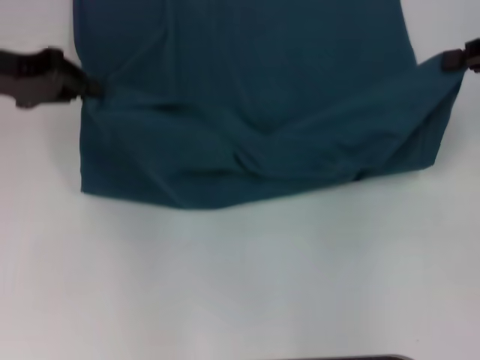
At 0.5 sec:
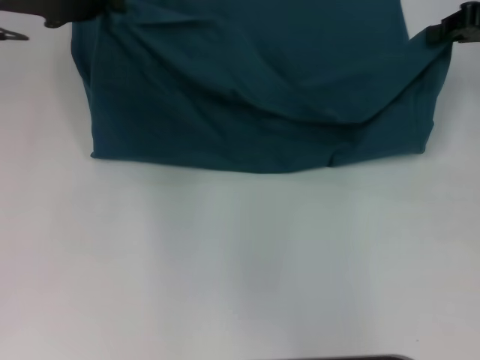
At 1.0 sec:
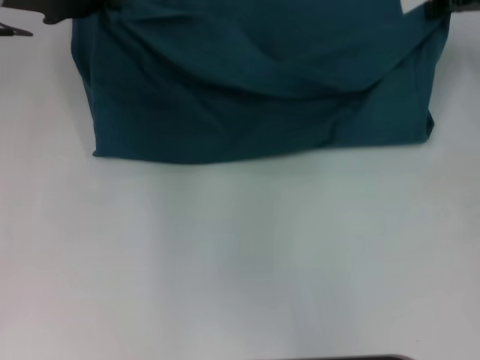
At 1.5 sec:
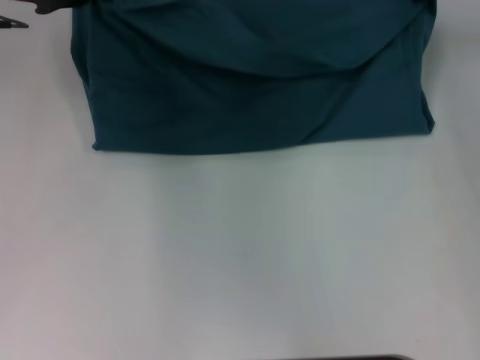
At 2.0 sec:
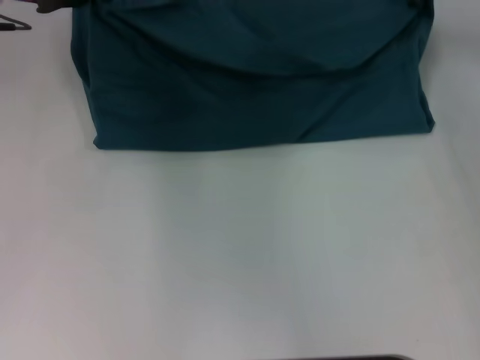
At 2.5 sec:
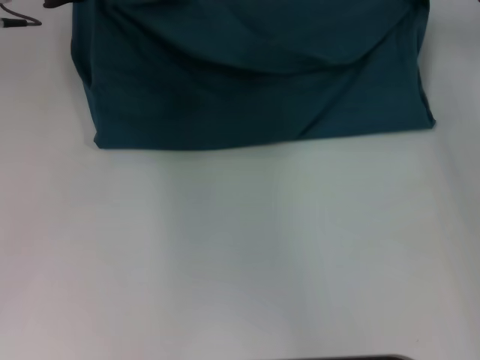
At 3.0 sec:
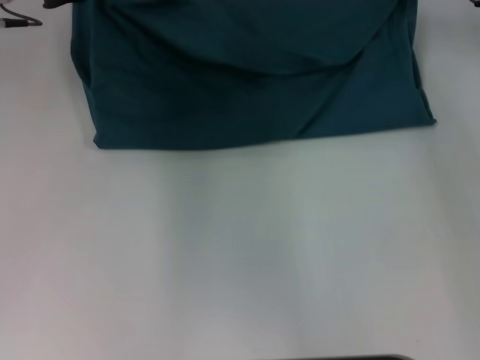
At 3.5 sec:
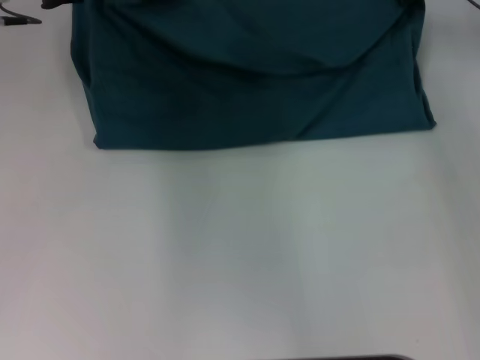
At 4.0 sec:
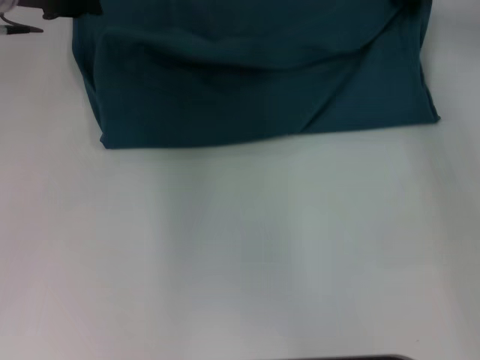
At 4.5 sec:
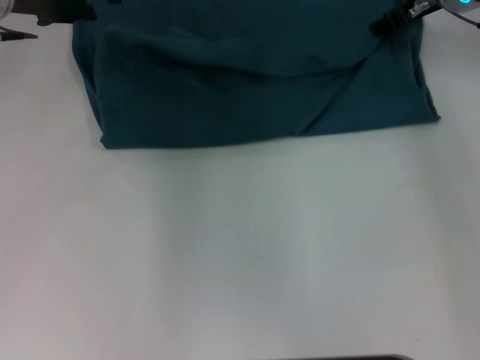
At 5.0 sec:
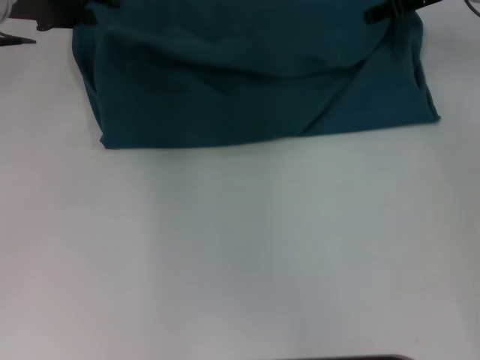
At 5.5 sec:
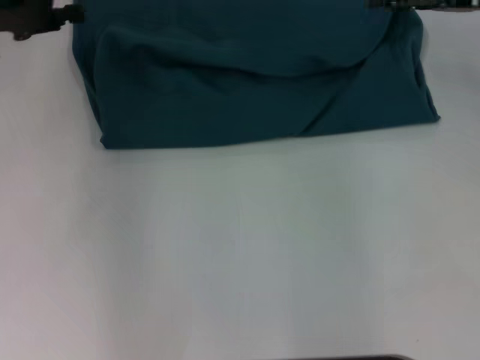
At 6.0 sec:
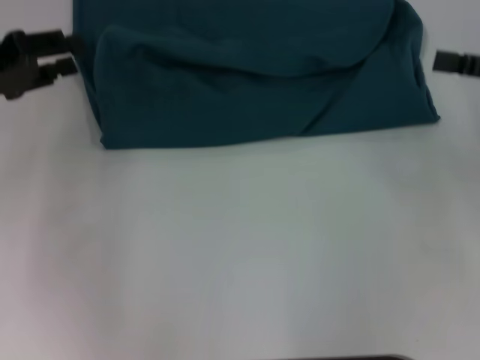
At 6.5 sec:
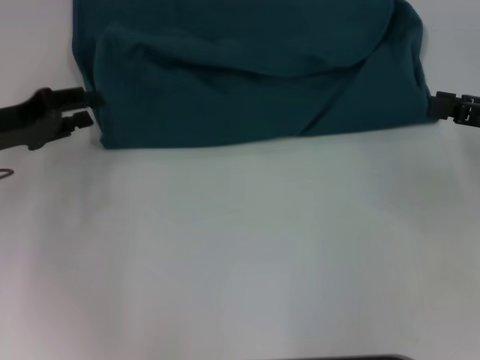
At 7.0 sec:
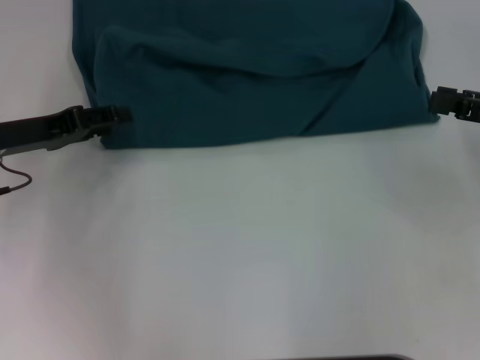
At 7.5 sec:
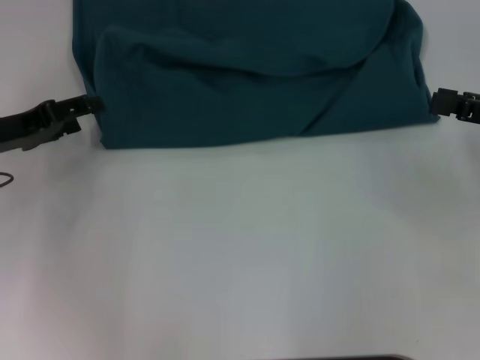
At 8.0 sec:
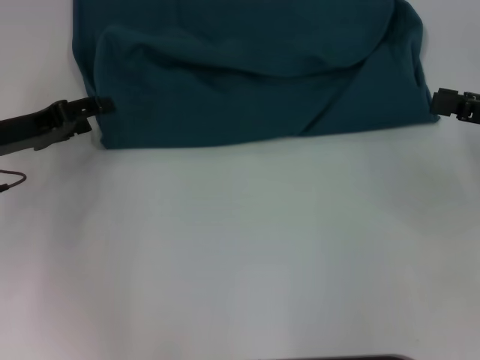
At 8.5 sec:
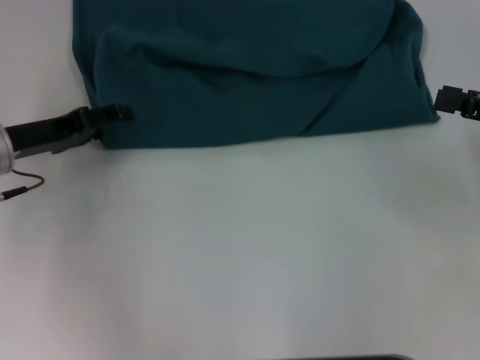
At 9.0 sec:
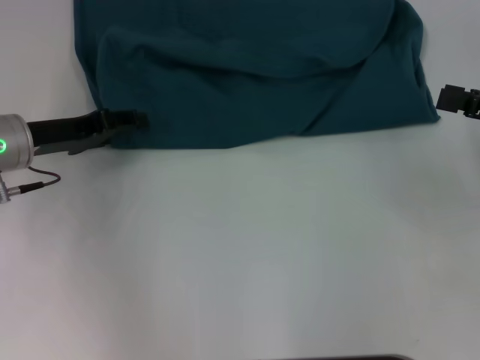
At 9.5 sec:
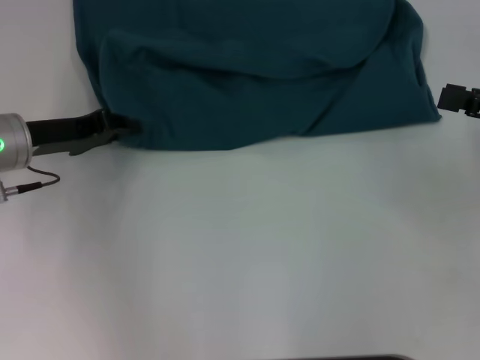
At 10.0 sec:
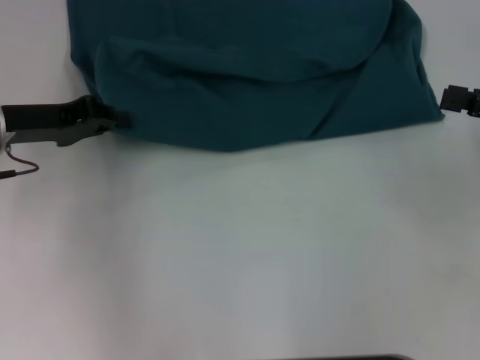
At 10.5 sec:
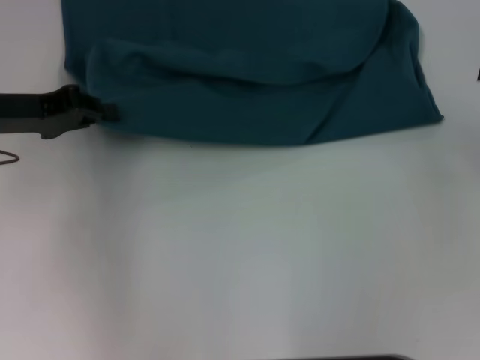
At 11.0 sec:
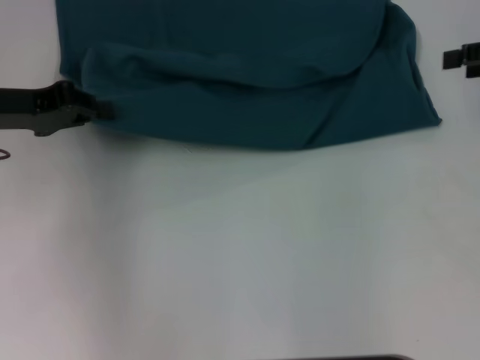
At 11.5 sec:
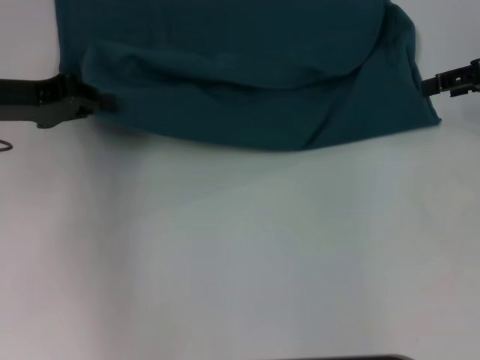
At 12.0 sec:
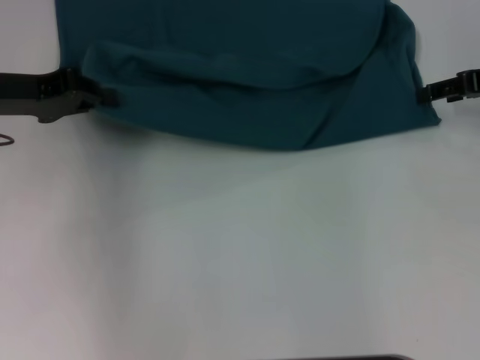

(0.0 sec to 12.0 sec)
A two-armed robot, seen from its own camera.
Step, 0.0 sec - 4.5 sec: Fold the clothes to the left.
Step, 0.0 sec - 4.5 sec: Fold the clothes to the right.
0.0 sec - 2.0 sec: The left gripper shifts roughly 5 cm forward. The right gripper goes some 15 cm forward and to the left.
2.0 sec - 4.0 sec: The right gripper opens its fingers.
4.0 sec - 6.0 sec: The right gripper moves backward and to the right, approximately 20 cm, and opens its fingers. Meanwhile the left gripper moves backward and to the left, some 15 cm.
6.0 sec - 8.0 sec: The left gripper shifts some 5 cm downward.
8.0 sec - 10.0 sec: The left gripper closes.
10.0 sec - 12.0 sec: The right gripper is displaced forward by about 10 cm.

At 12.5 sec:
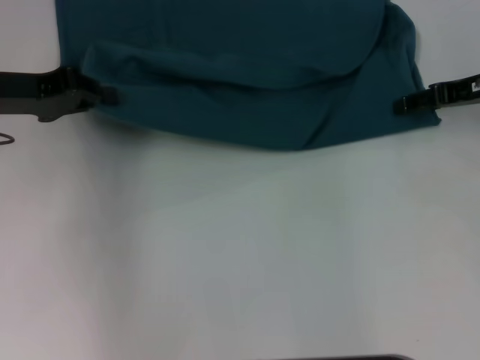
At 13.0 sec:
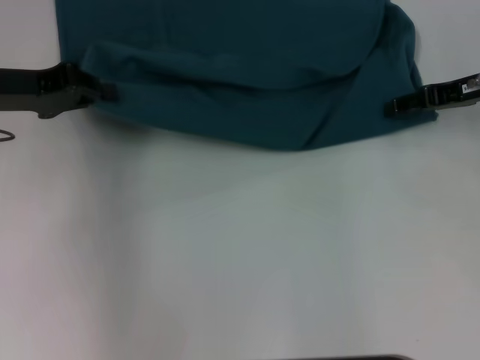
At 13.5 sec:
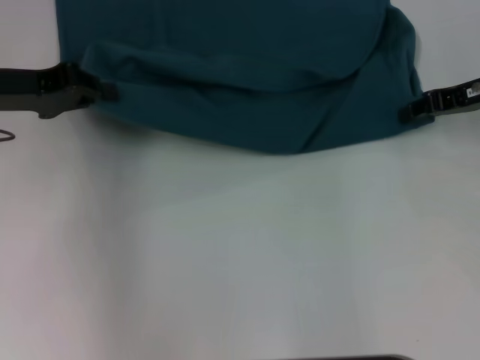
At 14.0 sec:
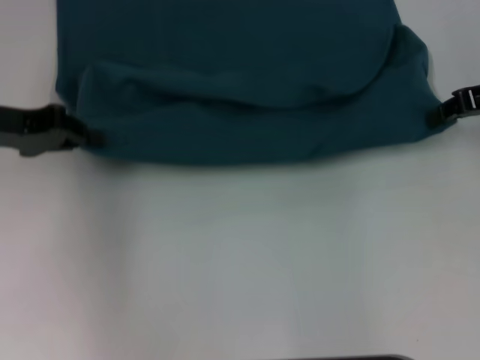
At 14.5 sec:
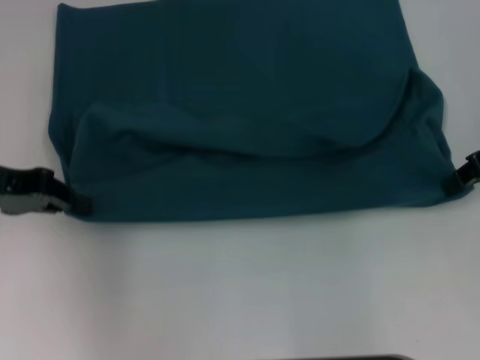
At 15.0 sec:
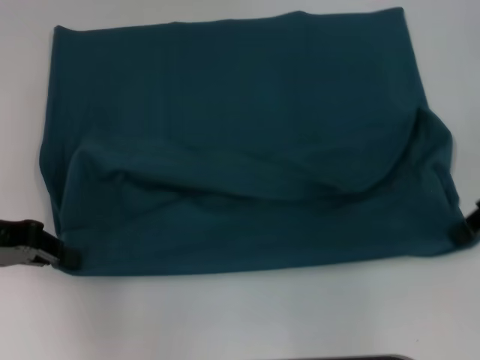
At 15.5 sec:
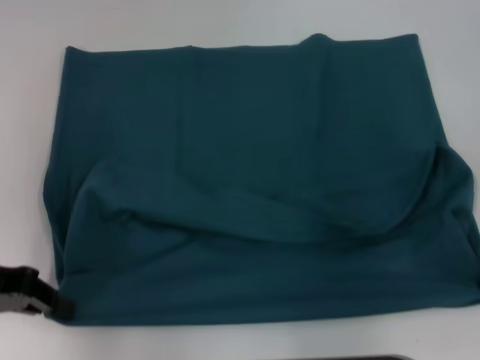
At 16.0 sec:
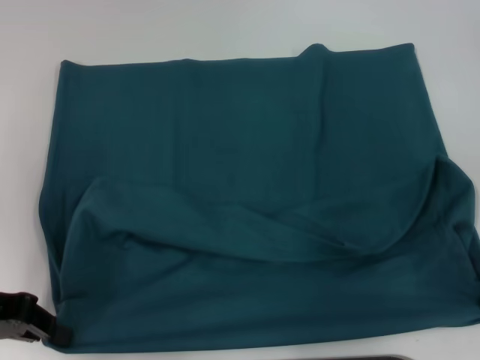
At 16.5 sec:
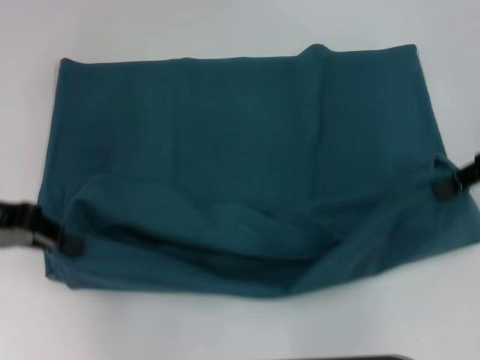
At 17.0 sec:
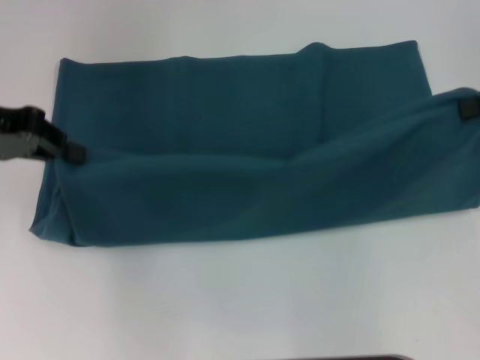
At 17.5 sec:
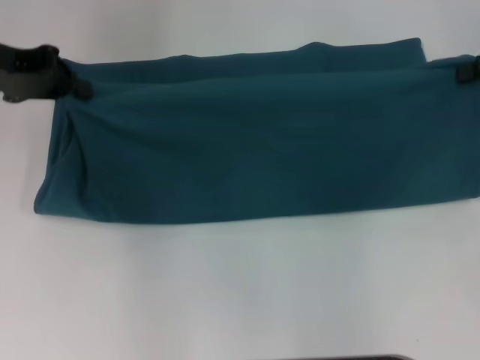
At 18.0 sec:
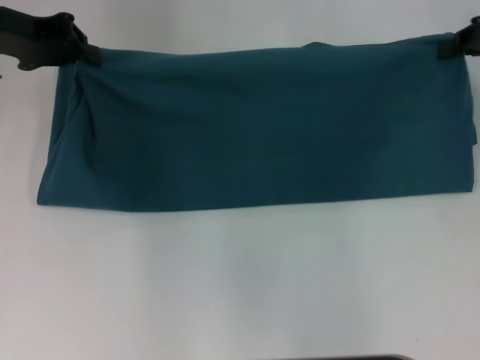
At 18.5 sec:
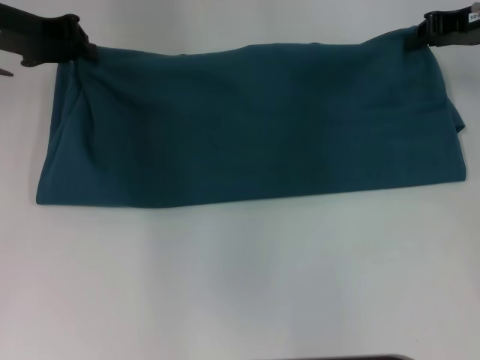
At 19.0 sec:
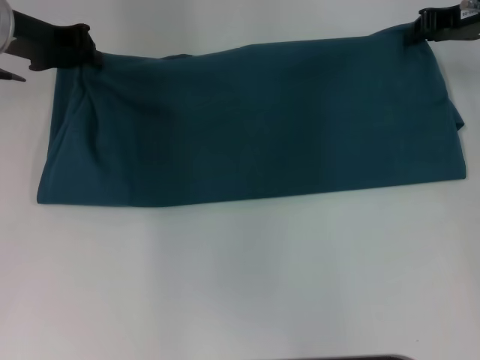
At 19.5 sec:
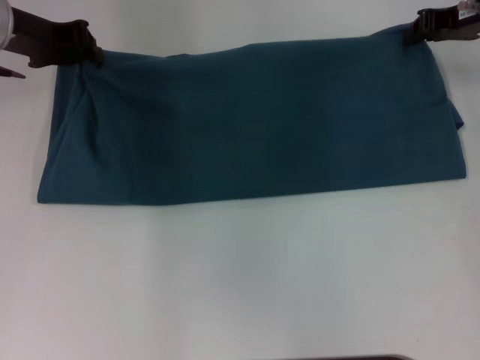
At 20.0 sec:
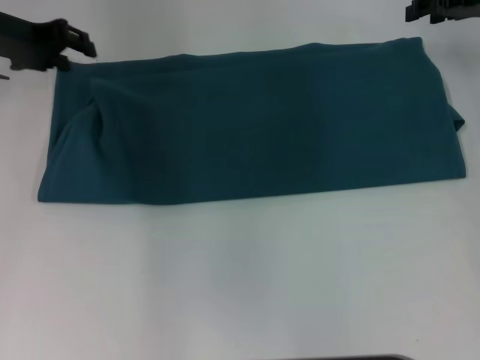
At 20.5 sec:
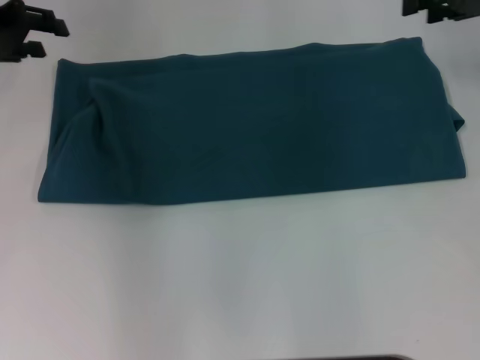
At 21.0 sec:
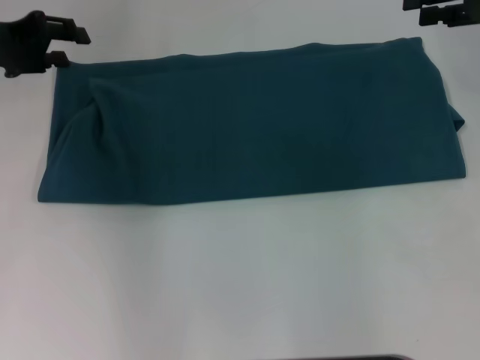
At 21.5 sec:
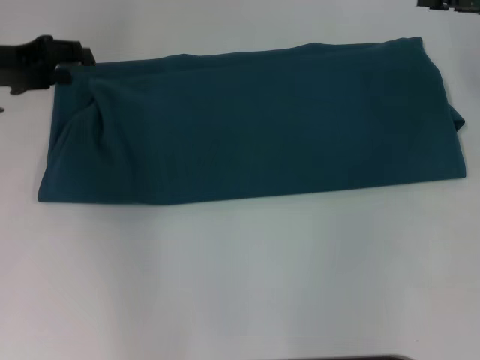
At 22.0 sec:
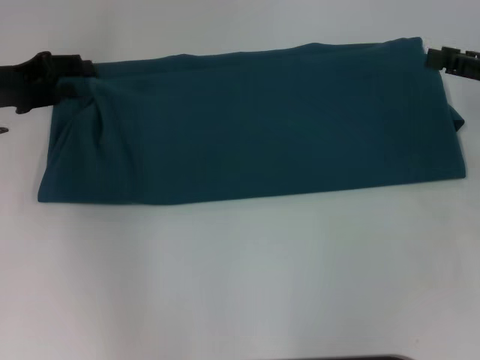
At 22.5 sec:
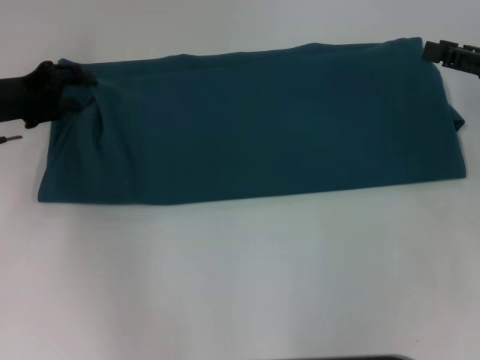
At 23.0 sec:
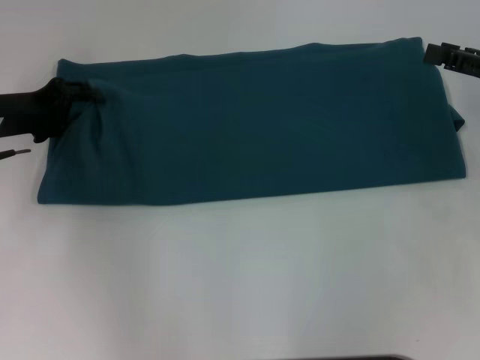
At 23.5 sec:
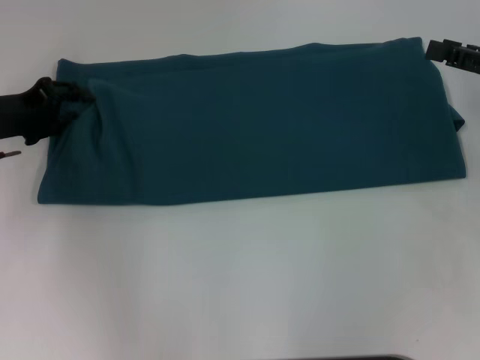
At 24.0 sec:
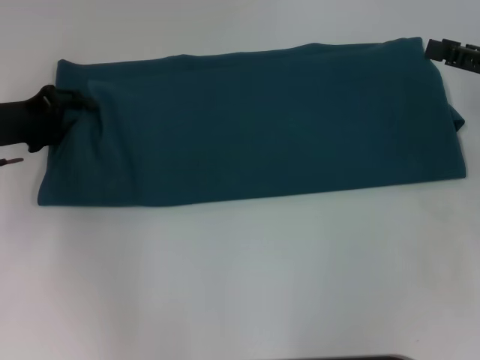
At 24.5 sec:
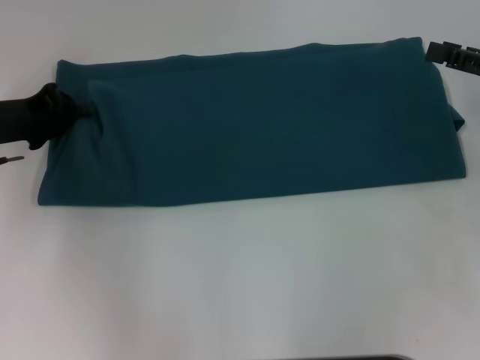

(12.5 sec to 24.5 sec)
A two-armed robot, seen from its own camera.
Step, 12.5 sec - 15.5 sec: Pull the clothes with your left hand.
Step, 12.5 sec - 15.5 sec: Pull the clothes with your right hand.
Step, 16.0 sec - 19.5 sec: Fold the clothes to the right.
12.5 sec - 14.5 sec: The right gripper moves approximately 5 cm, and closes; the left gripper changes place by about 5 cm.
16.5 sec - 18.5 sec: The grippers both shift forward by approximately 10 cm.
18.5 sec - 20.5 sec: The right gripper opens up. Meanwhile the left gripper shifts by roughly 5 cm, and opens.
20.5 sec - 22.5 sec: The right gripper heads backward and downward, covering approximately 15 cm; the left gripper moves downward, about 10 cm.
22.5 sec - 24.5 sec: There are only small adjustments of the grippers.

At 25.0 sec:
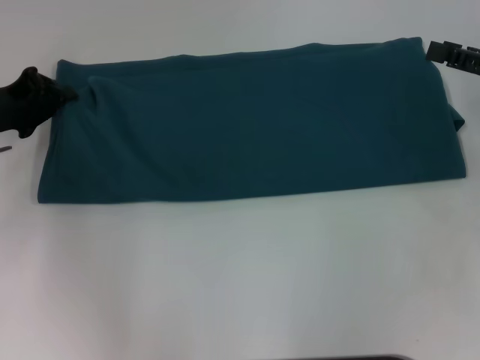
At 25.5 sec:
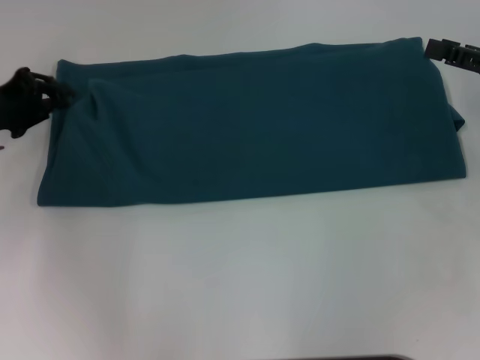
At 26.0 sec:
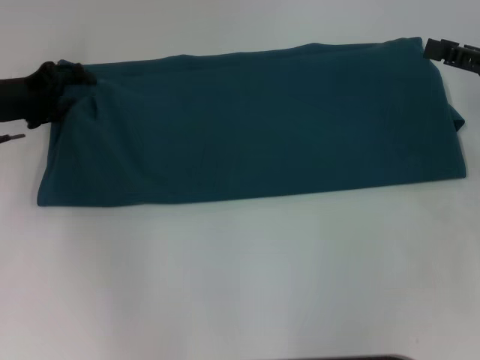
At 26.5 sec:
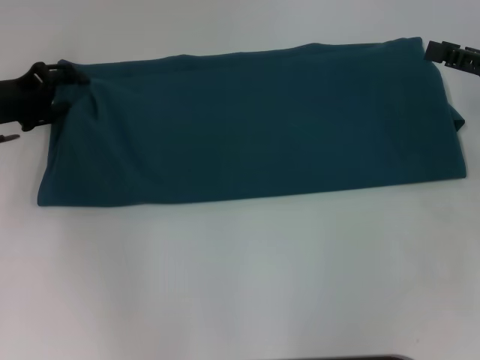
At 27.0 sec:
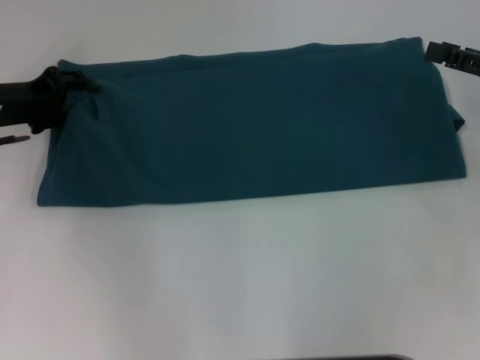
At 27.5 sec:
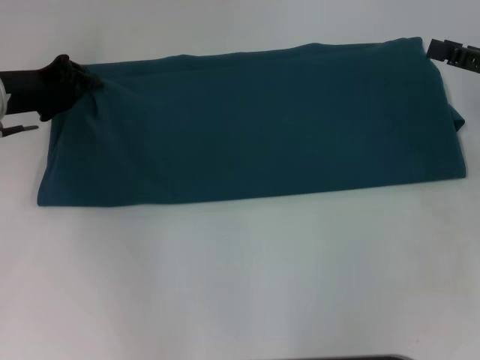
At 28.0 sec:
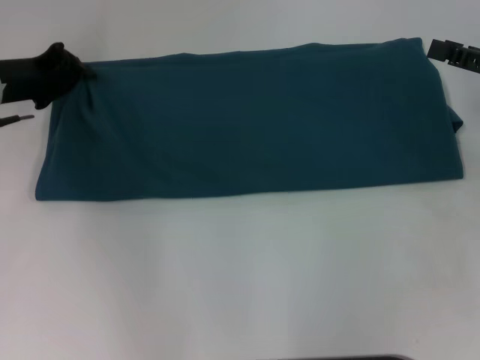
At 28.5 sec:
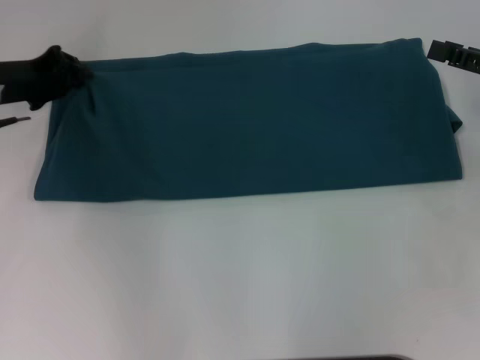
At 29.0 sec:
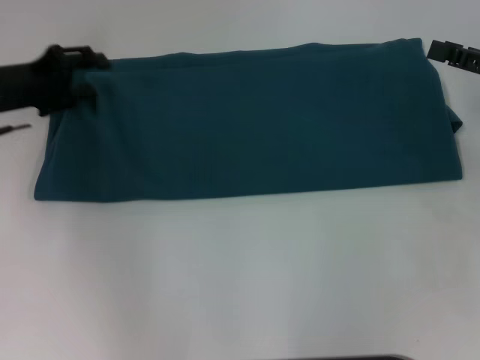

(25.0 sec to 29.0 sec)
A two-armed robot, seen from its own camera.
25.0 sec - 27.0 sec: The left gripper opens its fingers.
27.0 sec - 29.0 sec: The left gripper closes and opens again.
